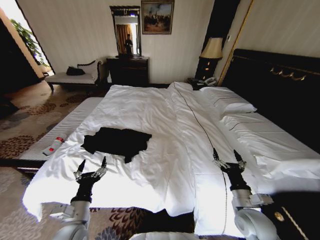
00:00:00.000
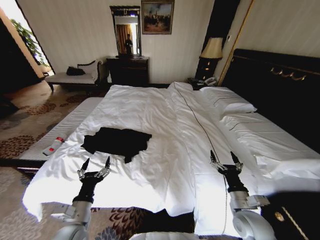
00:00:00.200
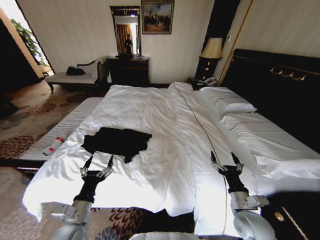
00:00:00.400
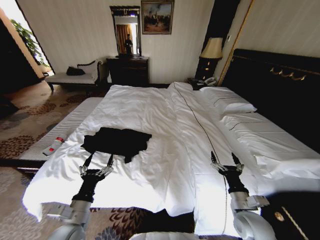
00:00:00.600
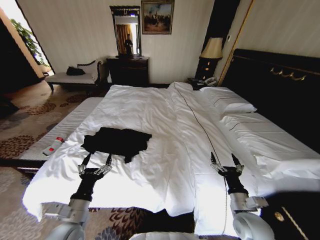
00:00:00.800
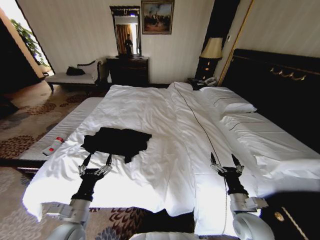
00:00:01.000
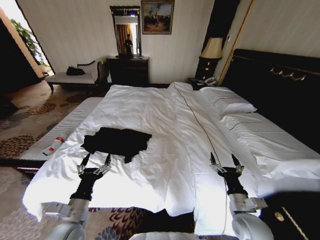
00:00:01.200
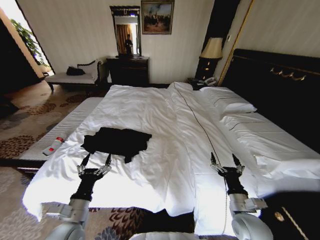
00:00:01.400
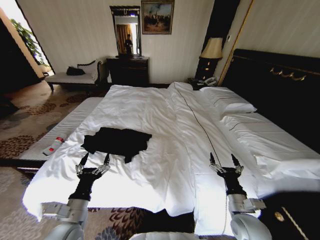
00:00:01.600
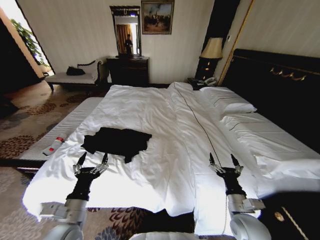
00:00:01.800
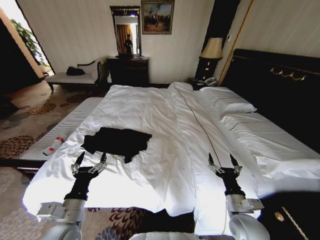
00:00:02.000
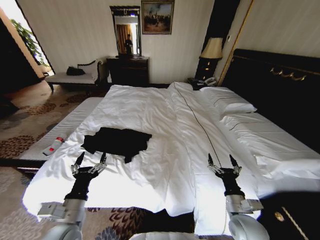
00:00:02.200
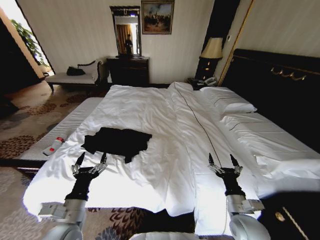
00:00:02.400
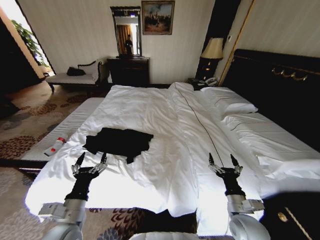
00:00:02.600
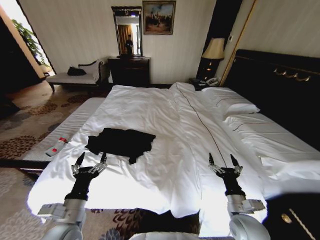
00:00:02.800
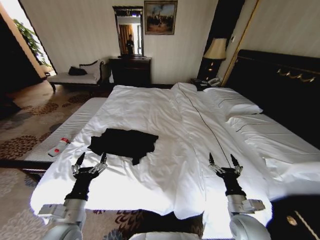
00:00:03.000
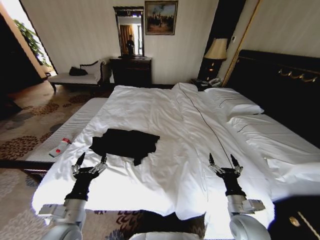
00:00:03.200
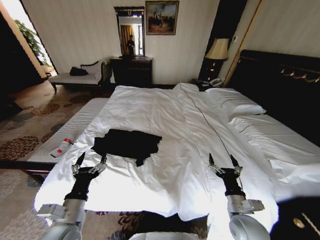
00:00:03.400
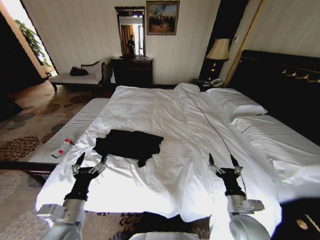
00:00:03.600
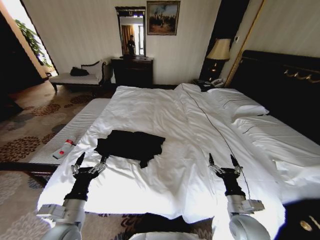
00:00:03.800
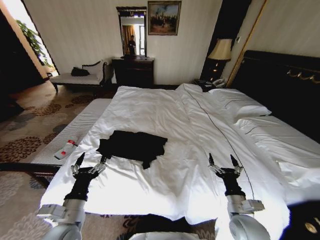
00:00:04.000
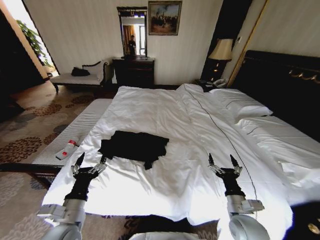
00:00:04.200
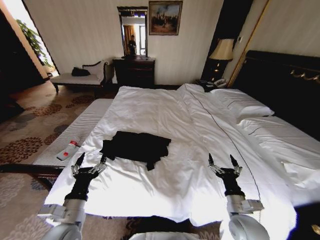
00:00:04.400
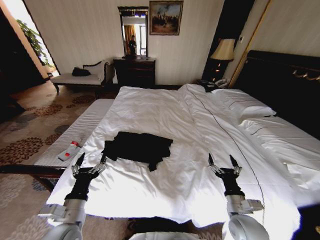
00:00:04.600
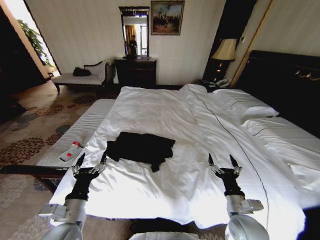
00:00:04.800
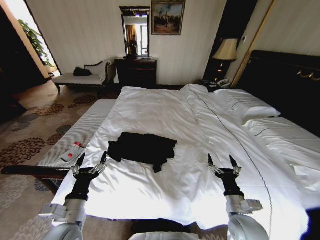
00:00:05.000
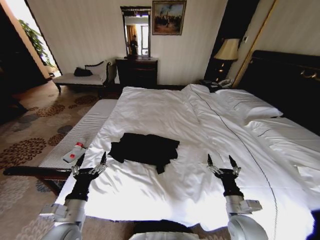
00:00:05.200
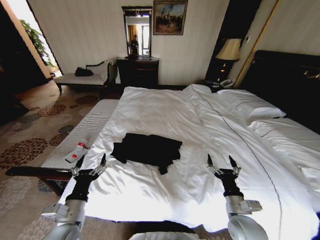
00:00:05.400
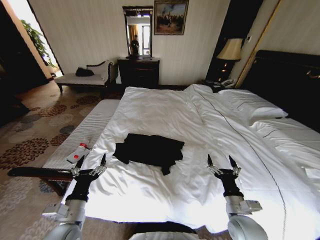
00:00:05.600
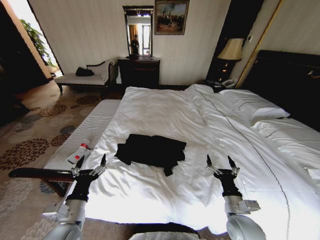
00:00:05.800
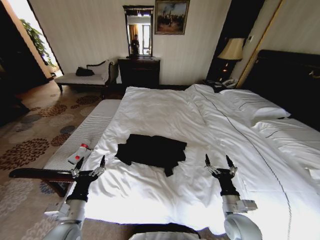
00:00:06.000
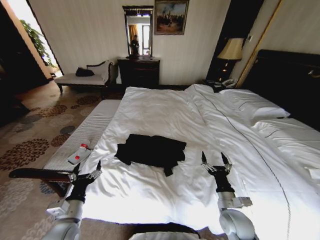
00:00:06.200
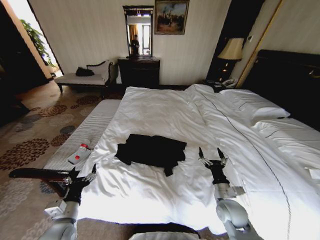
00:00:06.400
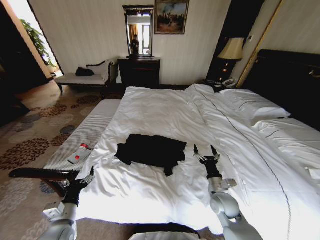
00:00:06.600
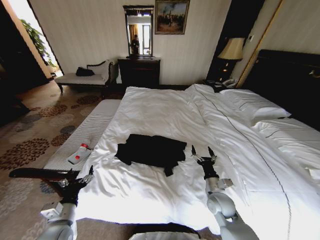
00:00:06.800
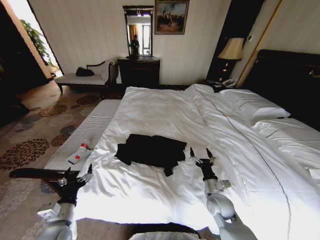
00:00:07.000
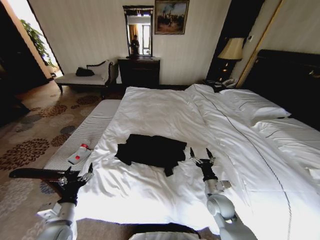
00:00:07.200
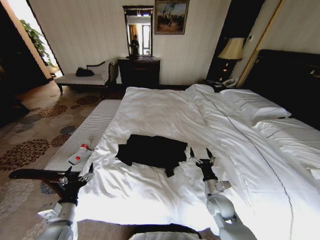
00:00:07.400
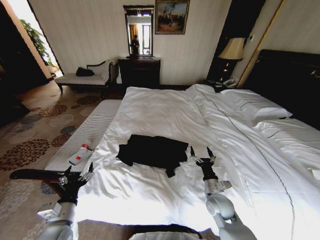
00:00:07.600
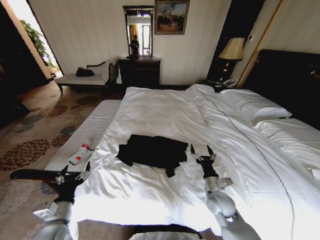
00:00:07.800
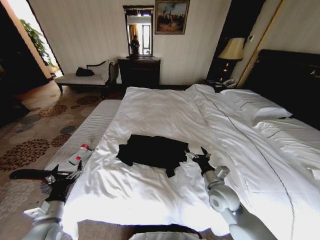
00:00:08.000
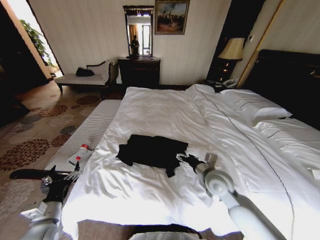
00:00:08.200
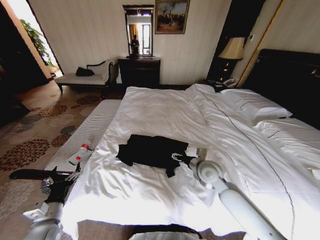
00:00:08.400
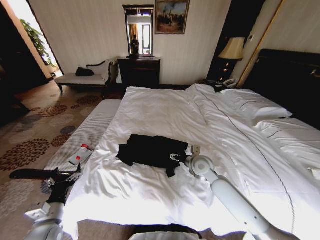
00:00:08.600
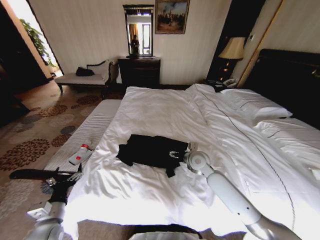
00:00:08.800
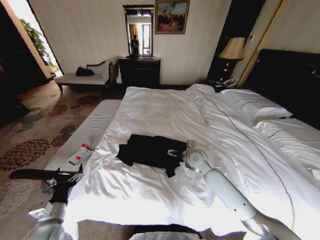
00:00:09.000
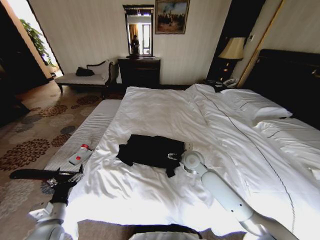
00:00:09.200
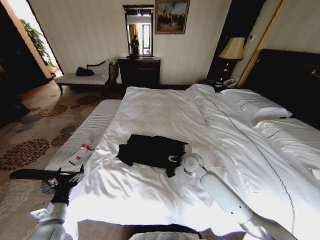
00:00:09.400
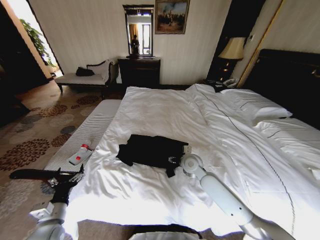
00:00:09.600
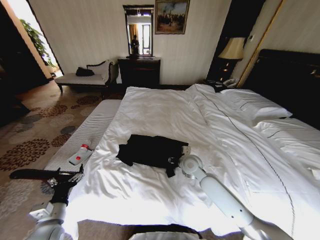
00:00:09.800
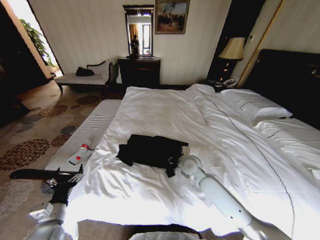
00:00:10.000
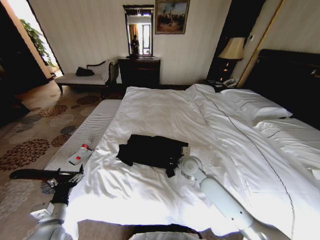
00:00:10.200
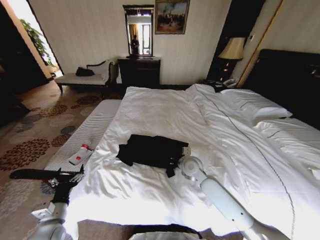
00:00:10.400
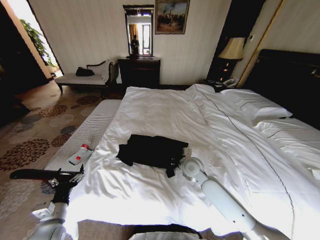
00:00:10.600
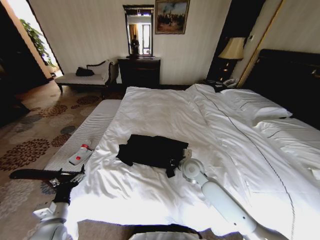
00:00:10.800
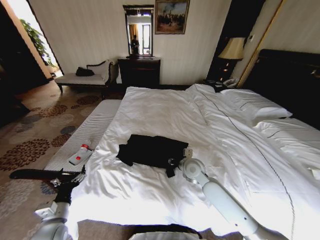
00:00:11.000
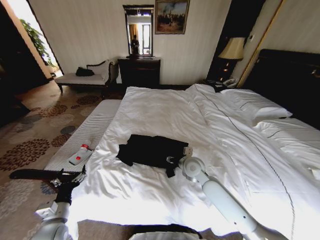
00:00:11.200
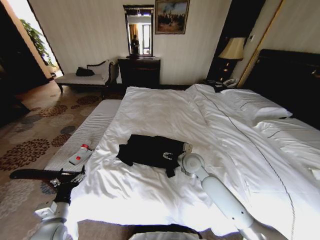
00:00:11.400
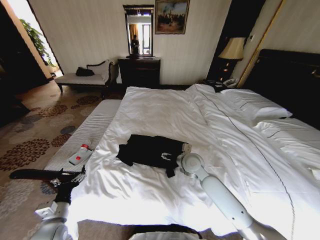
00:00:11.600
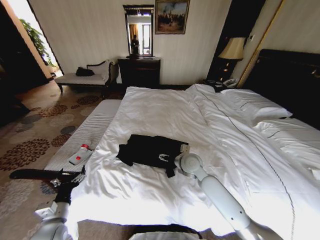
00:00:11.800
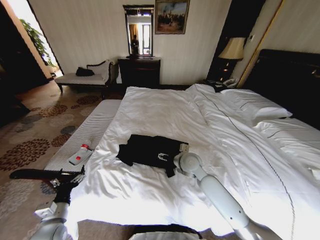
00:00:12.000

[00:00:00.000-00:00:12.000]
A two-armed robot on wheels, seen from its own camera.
Task of the whole recording: Fold the clothes on the bed.
00:00:00.000 to 00:00:01.600: The grippers stay close to where they were, moving slightly.
00:00:06.000 to 00:00:07.600: The right gripper goes roughly 10 cm forward.
00:00:07.600 to 00:00:09.000: The right gripper heads forward, upward and to the left, covering some 20 cm.
00:00:09.000 to 00:00:10.400: The right gripper closes its fingers.
00:00:10.400 to 00:00:12.000: The right gripper opens its fingers.

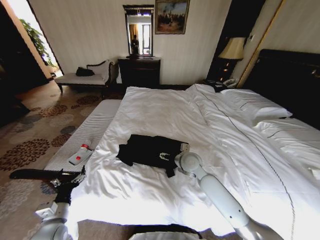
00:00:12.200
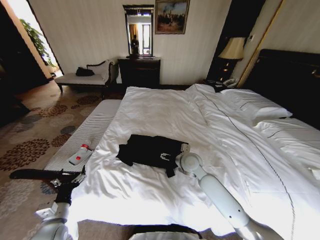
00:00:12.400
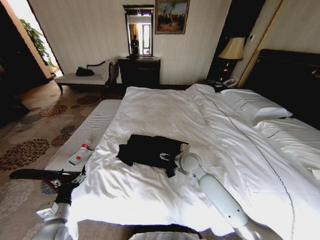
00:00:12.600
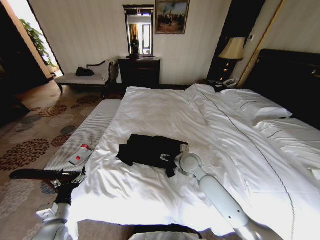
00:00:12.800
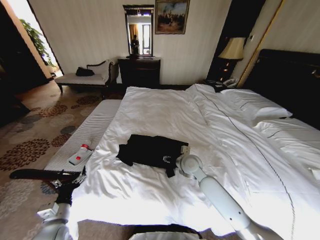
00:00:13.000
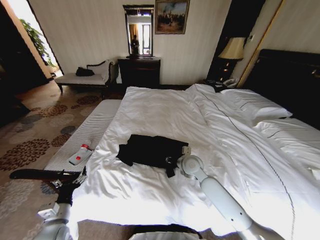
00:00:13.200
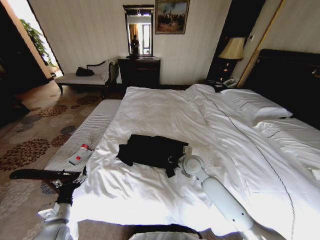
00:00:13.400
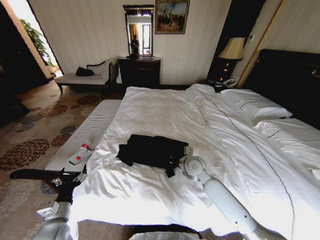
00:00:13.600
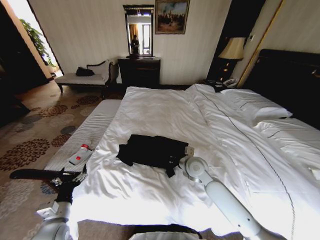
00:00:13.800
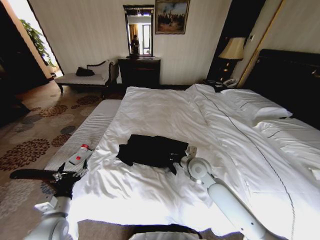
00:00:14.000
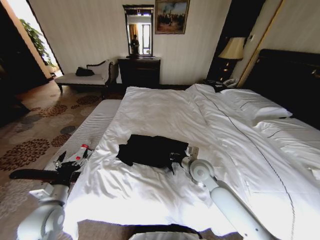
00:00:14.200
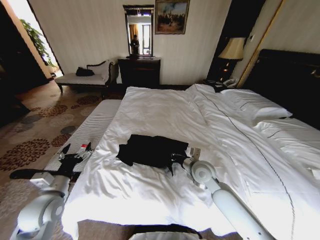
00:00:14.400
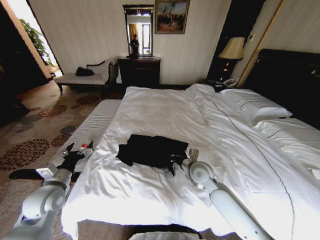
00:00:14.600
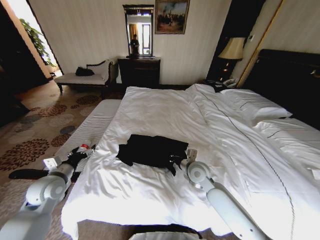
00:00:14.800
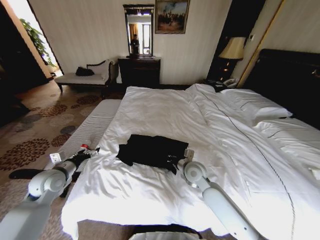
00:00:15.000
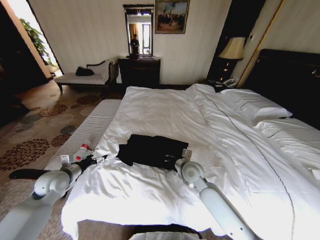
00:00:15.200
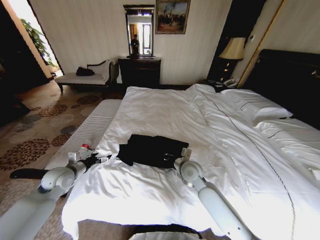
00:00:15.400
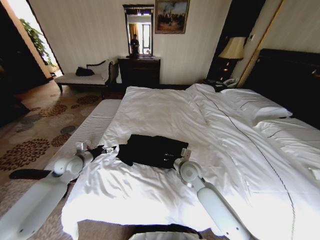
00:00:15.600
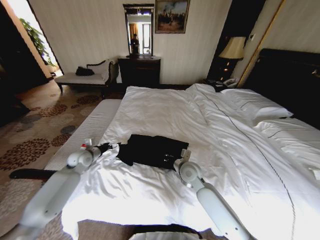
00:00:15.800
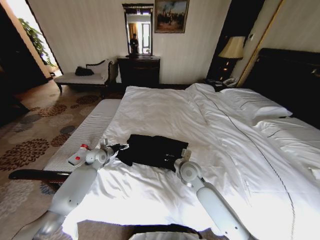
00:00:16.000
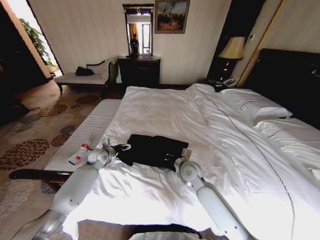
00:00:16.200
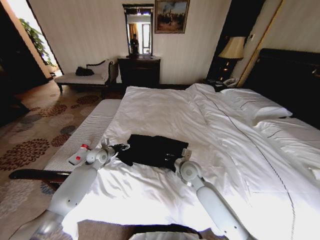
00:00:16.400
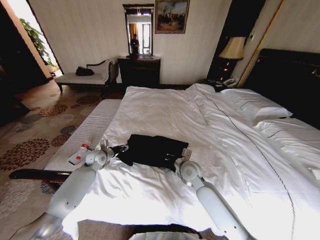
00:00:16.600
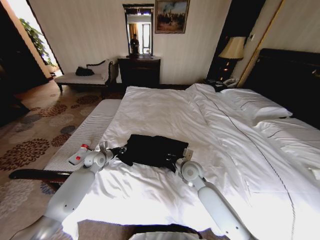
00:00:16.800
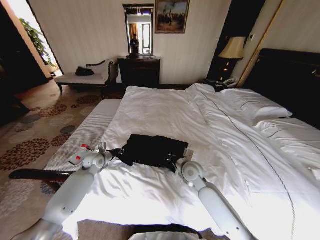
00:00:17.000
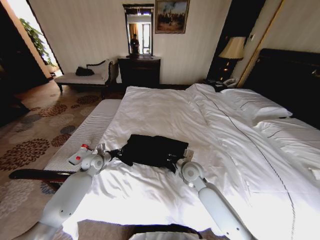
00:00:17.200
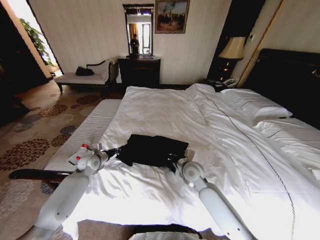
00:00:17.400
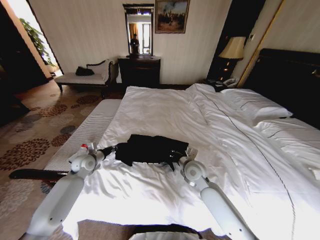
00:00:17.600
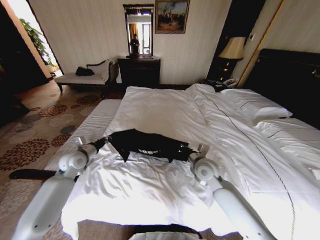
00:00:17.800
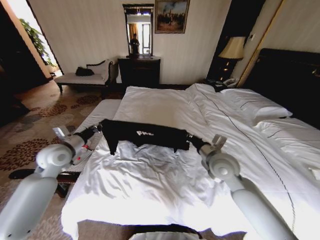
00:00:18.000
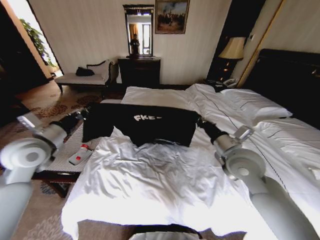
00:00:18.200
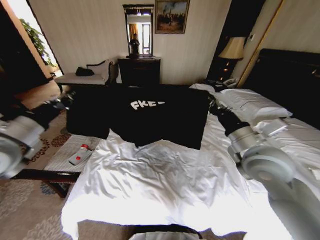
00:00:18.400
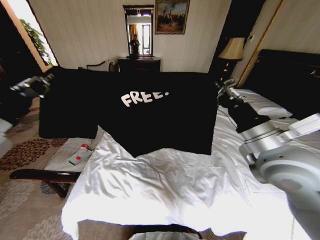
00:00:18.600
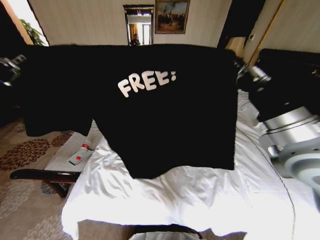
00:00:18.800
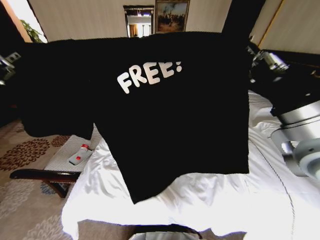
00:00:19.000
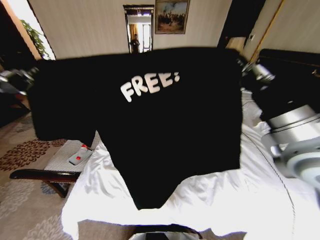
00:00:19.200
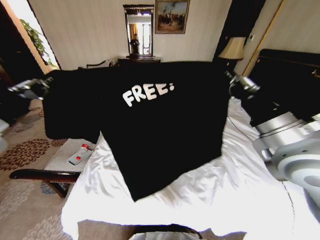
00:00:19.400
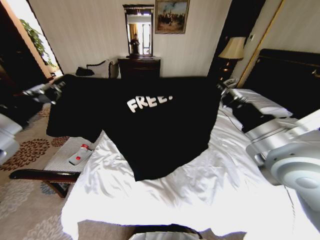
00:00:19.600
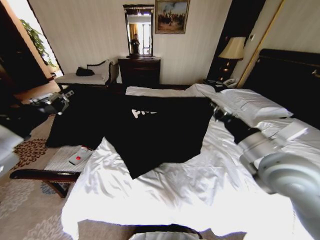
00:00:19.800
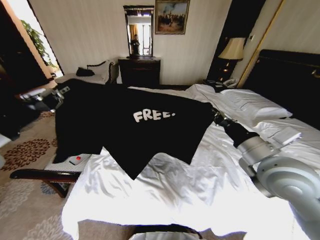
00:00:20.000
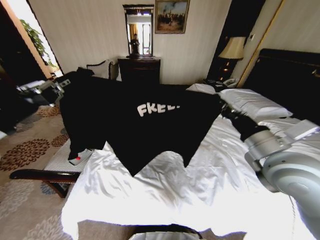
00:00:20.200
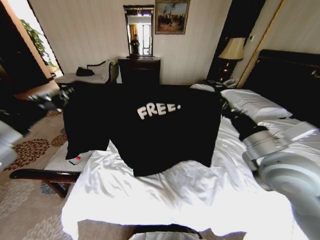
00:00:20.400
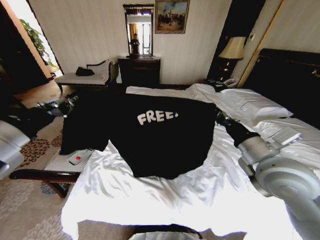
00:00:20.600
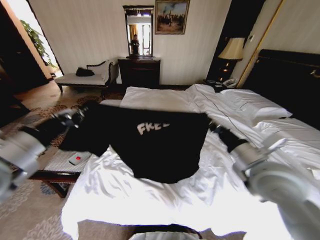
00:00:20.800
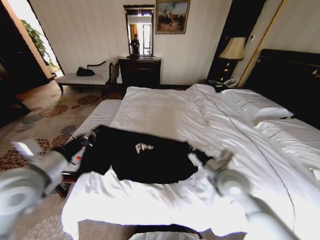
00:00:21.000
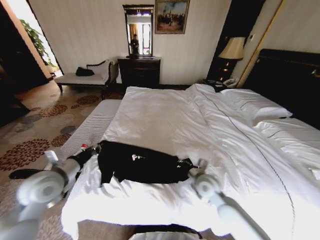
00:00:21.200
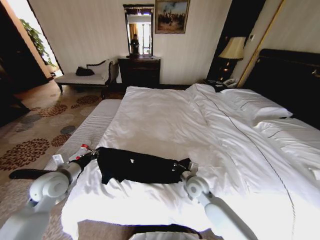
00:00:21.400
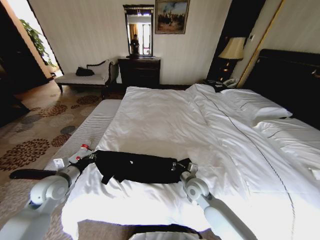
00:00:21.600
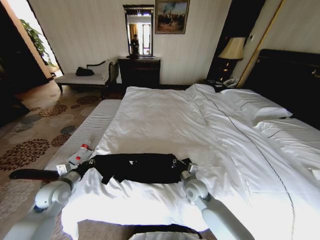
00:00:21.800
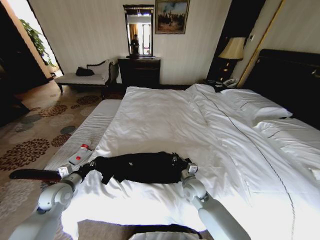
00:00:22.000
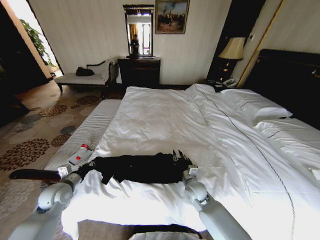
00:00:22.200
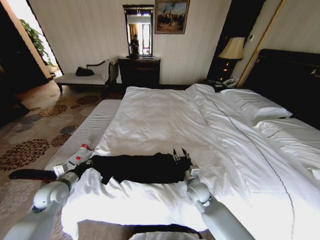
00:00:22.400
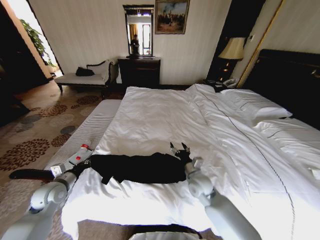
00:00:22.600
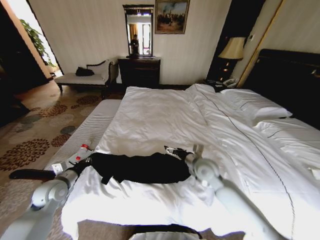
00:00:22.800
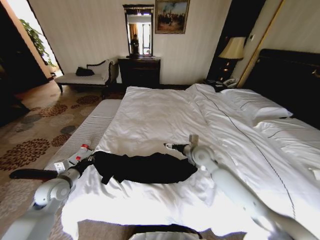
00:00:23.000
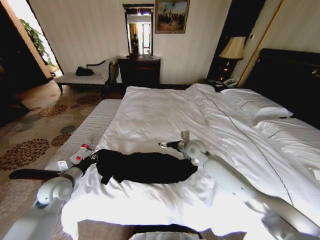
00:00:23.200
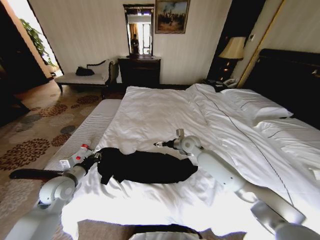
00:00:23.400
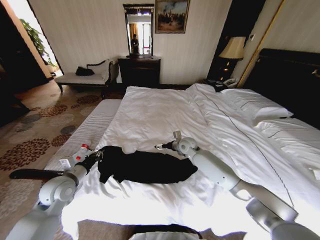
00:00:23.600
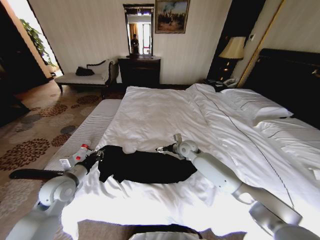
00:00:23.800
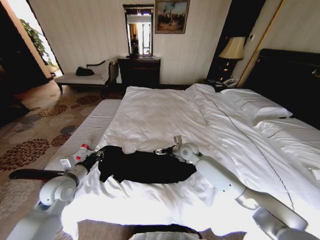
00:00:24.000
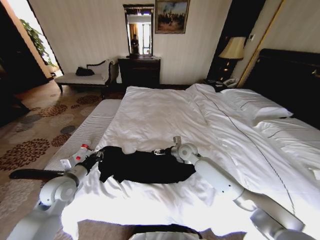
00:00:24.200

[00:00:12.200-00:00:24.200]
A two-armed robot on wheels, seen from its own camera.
Task of the whole recording: Fold the clothes on the bed.
00:00:12.200 to 00:00:13.800: The right gripper closes up.
00:00:13.800 to 00:00:15.200: The left gripper is displaced forward and upward by about 15 cm.
00:00:15.200 to 00:00:16.600: The left gripper shifts roughly 15 cm forward and to the right, and closes up.
00:00:16.600 to 00:00:18.200: The right gripper travels upward and to the right by roughly 20 cm. Meanwhile the left gripper moves upward and backward, approximately 25 cm, and closes.
00:00:18.200 to 00:00:19.800: The left gripper moves backward and upward, about 15 cm; the right gripper is displaced backward and upward by some 10 cm.
00:00:19.800 to 00:00:21.200: Both grippers move downward, about 20 cm.
00:00:21.200 to 00:00:22.600: The left gripper goes about 15 cm downward and to the left; the right gripper travels downward and back again, approximately 10 cm each way, and opens its fingers.
00:00:22.600 to 00:00:24.200: The right gripper heads forward, covering some 15 cm. The left gripper shifts some 5 cm to the right.
